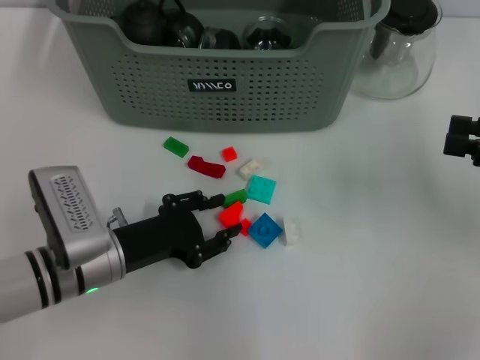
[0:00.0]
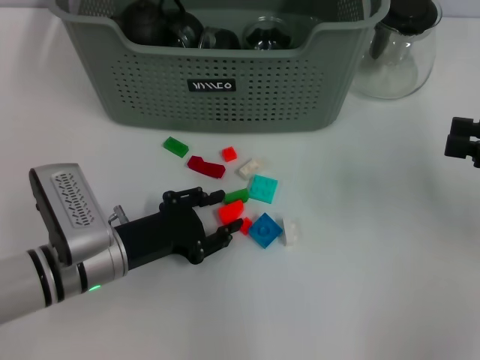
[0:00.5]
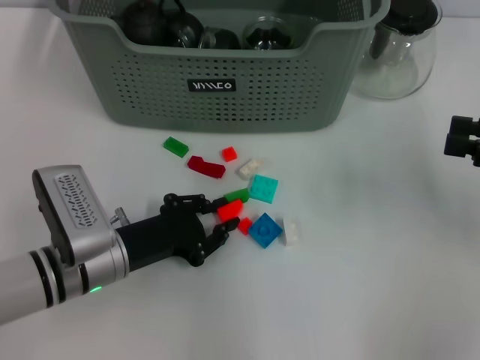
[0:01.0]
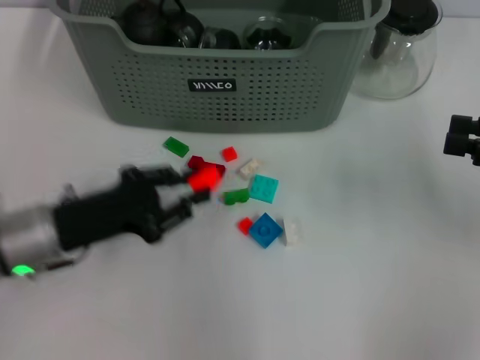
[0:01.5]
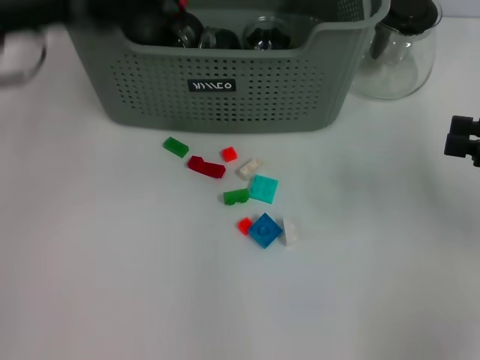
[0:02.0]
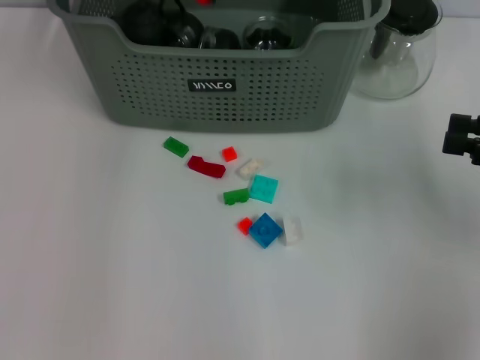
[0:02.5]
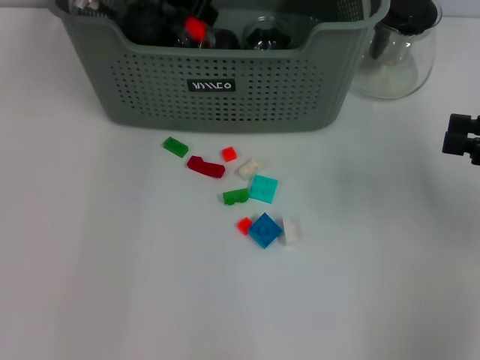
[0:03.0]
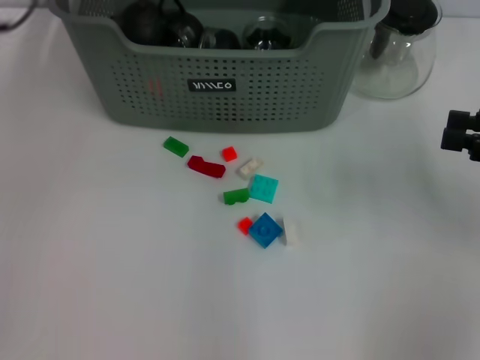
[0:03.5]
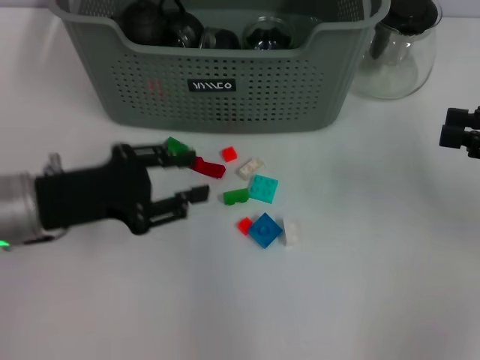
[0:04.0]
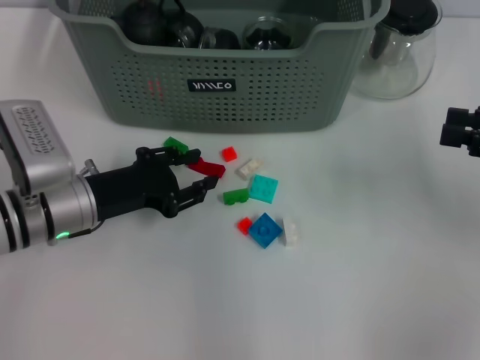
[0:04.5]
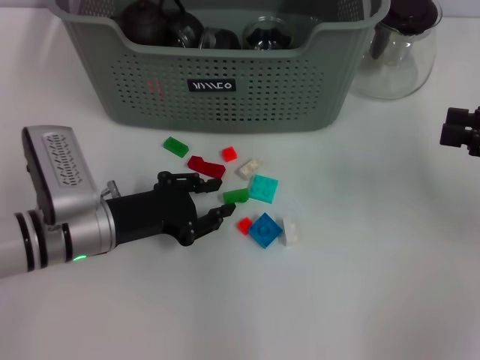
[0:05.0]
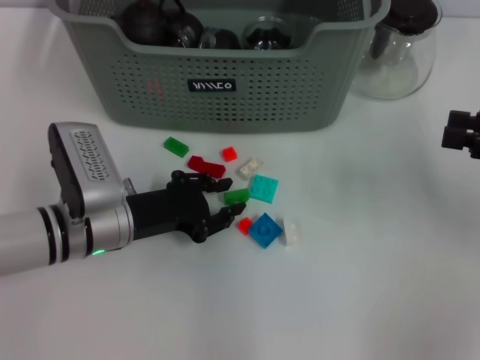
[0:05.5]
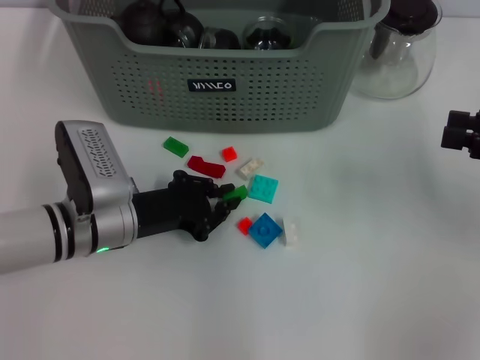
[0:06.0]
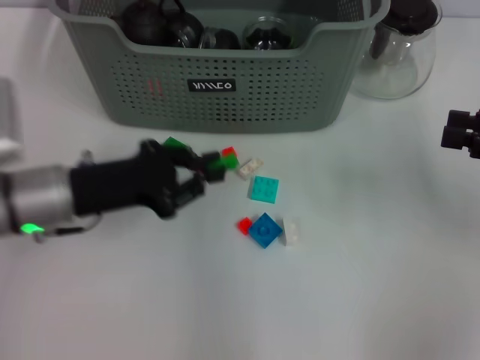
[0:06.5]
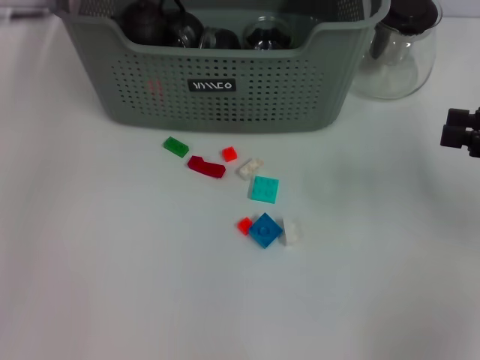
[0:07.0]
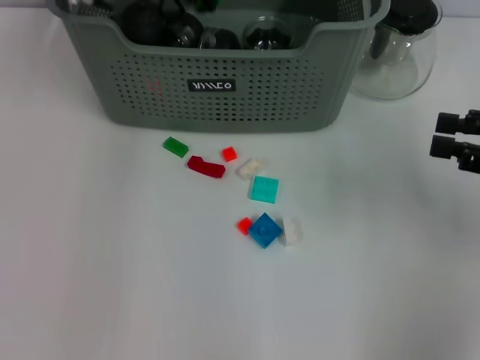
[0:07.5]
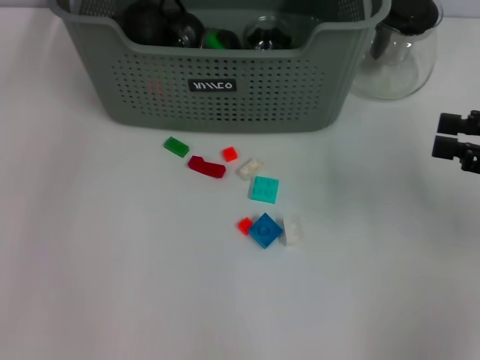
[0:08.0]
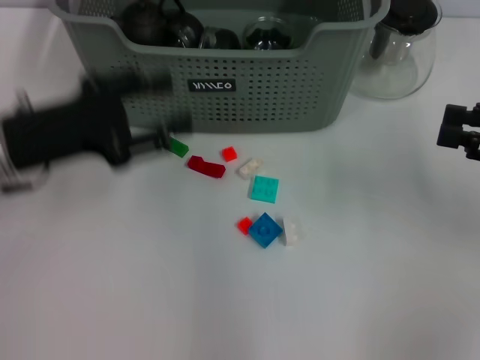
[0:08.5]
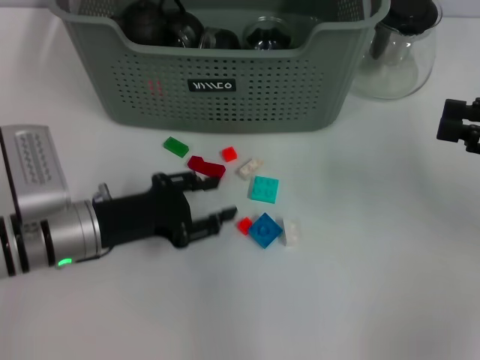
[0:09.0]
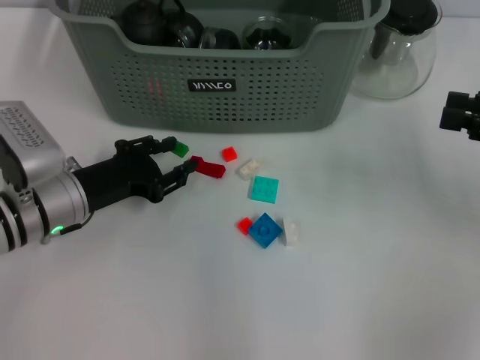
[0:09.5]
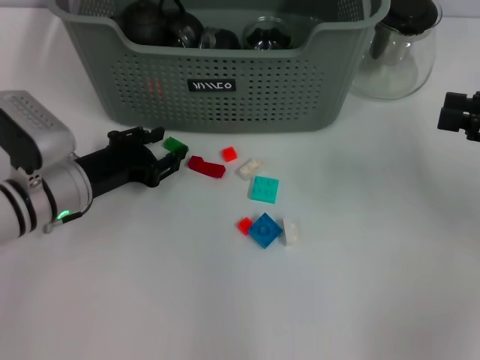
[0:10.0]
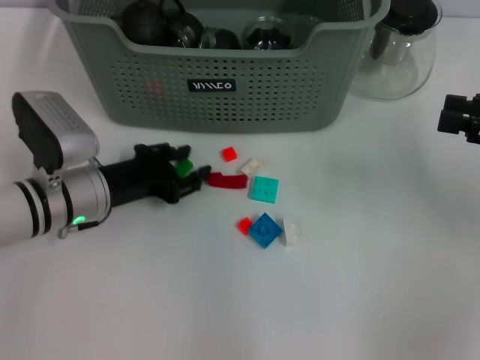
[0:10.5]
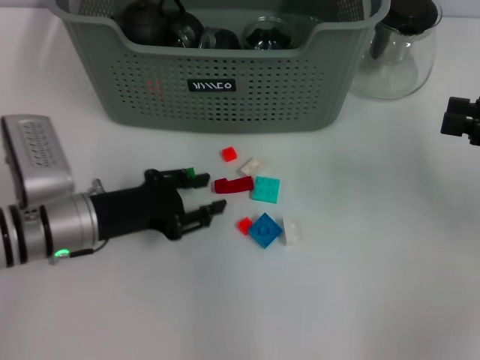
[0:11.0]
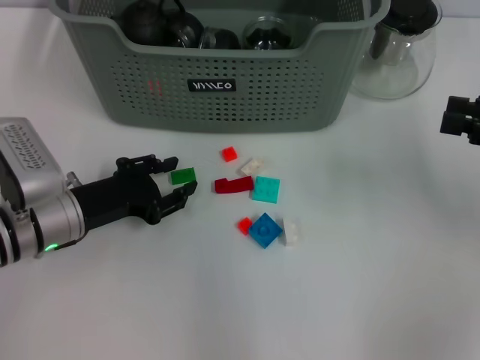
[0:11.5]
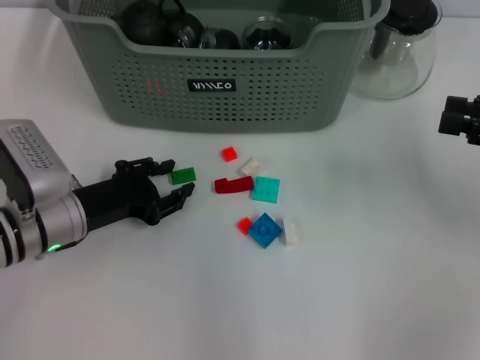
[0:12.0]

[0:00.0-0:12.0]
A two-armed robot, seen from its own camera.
Task of the whole recording: pick up the teacup on the table and place it into the storage bin, pick up the block on the table and place it into the storage bin.
Step, 0:01.5 to 0:03.5: Place the orange block in the storage box with left gripper.
Step, 0:04.0 to 0:06.0: Grasp the green block with left gripper.
Step, 0:06.5 to 0:08.0: Place the green block in the storage box with left gripper.
0:00.0 to 0:02.0: The left gripper travels upward and forward by some 25 cm.
0:02.0 to 0:04.0: The left gripper shifts approximately 15 cm downward and backward.
0:04.0 to 0:06.0: The left gripper travels downward and to the right by about 10 cm.
0:06.0 to 0:08.0: The left gripper heads upward and forward, covering roughly 30 cm.
0:08.0 to 0:10.0: The left gripper travels downward and backward by approximately 25 cm.
0:10.0 to 0:12.0: The grippers move only a little.
